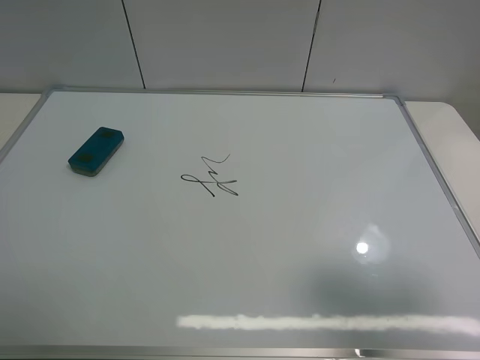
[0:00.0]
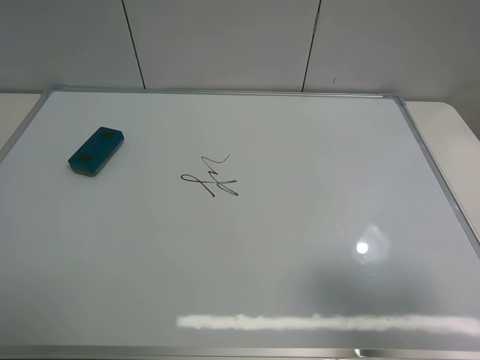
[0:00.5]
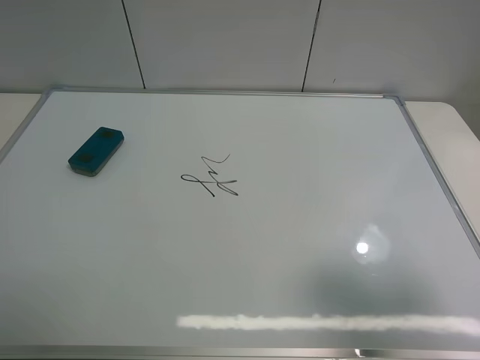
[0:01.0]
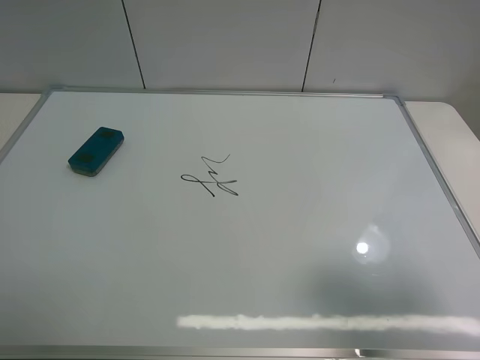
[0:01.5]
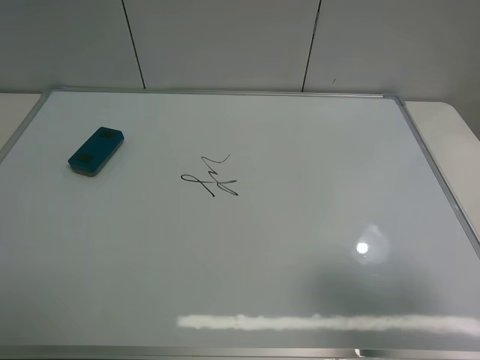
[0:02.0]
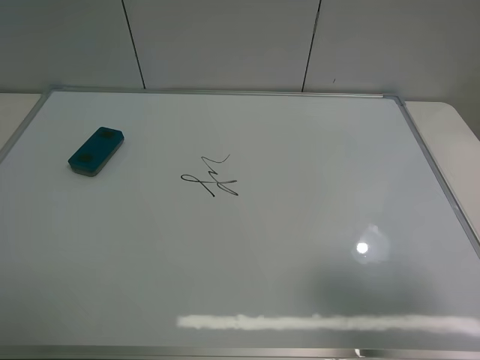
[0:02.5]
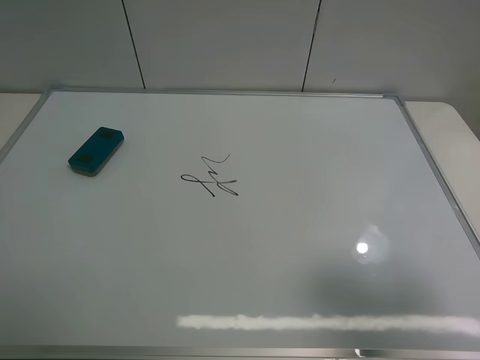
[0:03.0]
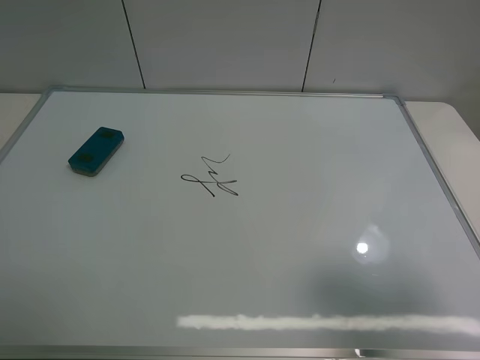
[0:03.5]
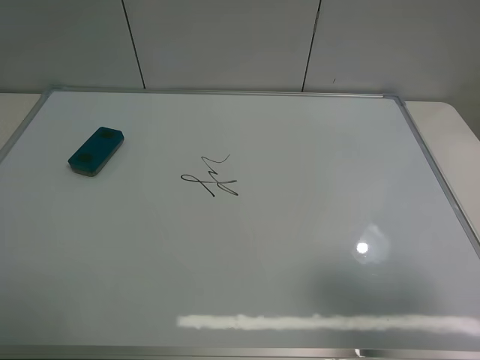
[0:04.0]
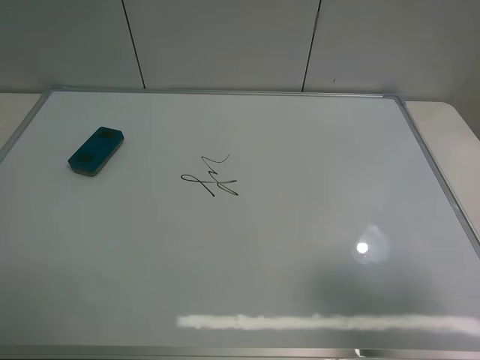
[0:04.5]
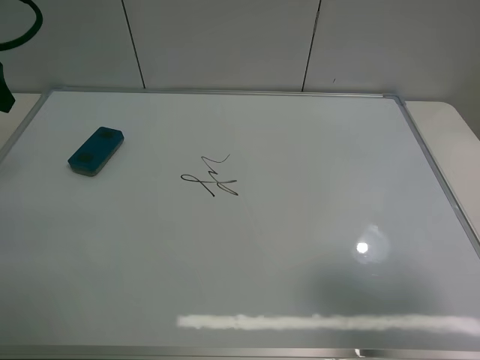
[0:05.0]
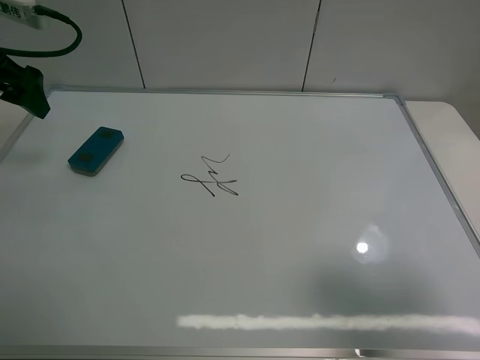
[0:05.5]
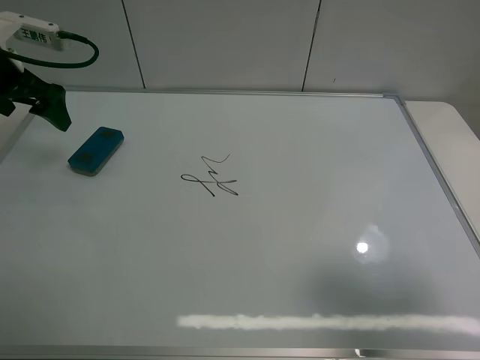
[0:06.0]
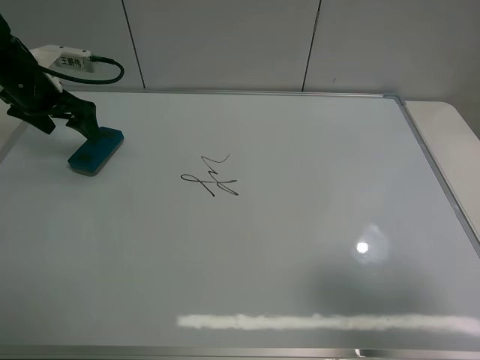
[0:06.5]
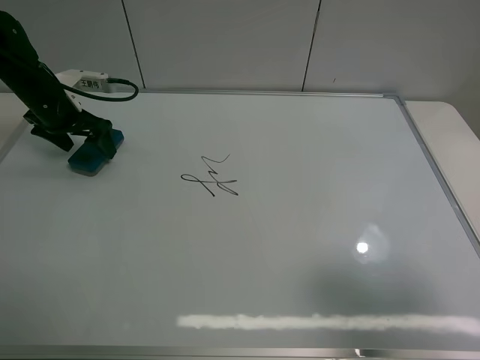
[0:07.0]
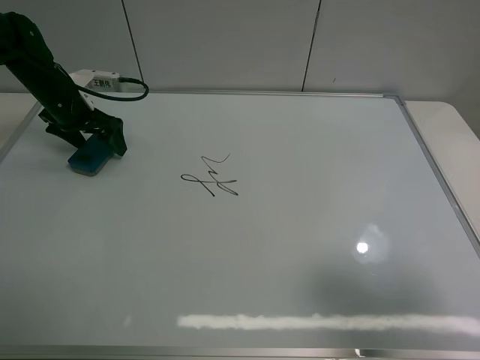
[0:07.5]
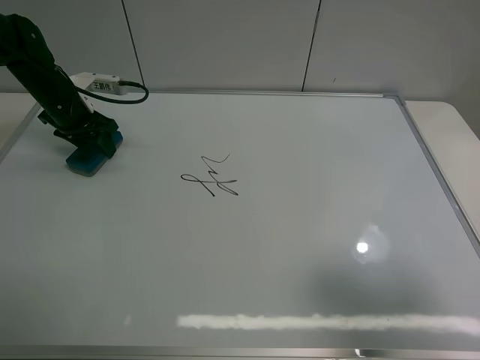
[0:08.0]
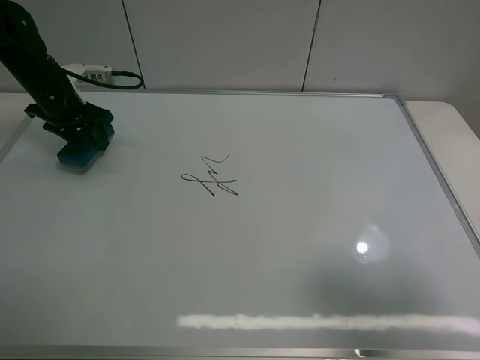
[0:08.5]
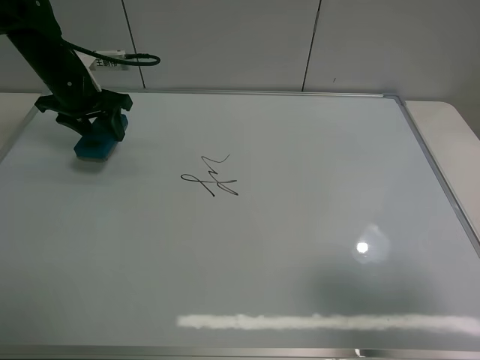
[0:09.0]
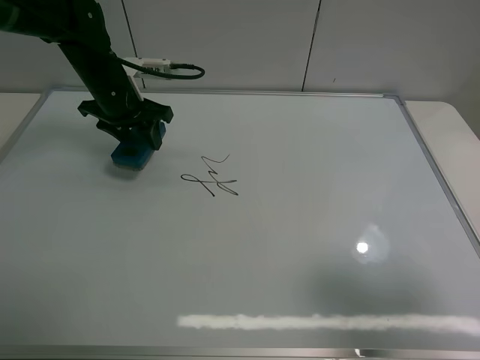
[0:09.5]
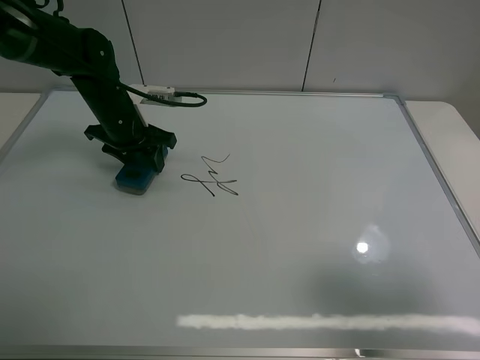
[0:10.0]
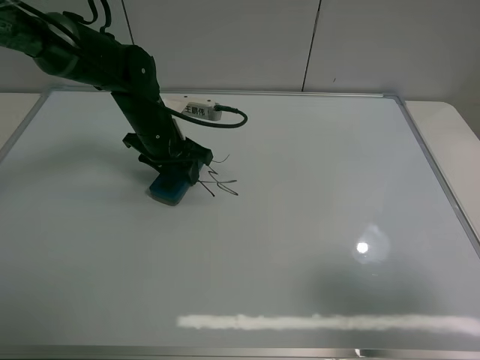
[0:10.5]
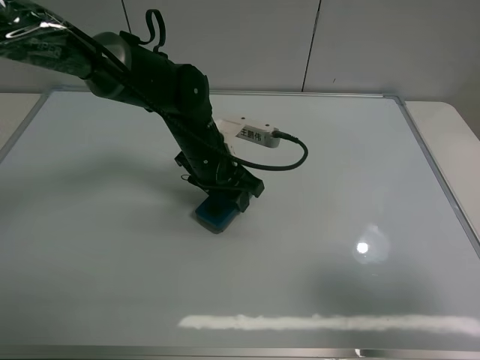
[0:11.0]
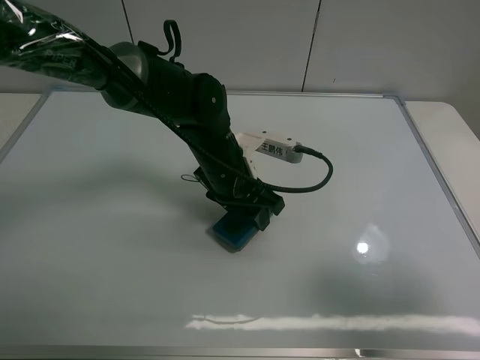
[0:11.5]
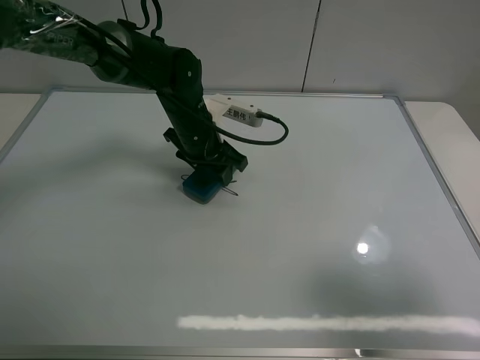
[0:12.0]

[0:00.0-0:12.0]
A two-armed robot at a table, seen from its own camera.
Task of the whole recording: use the left claw to pick up the whiteboard eraser, wipe the notes on the whiteboard clean, and then put them back in place.
Step, 0:00.0 to 0:08.0: Grasp the eraser with the left gripper.
0:00.0 to 0:02.0: Both grippers stay put.
0:04.0 to 0:06.0: The left gripper shifts roughly 25 cm forward.
0:06.0 to 0:08.0: The left gripper moves downward and forward, some 15 cm, and closes its fingers.
0:08.0 to 0:10.0: The left gripper goes approximately 10 cm to the right.
0:10.0 to 0:12.0: The left gripper moves to the right, approximately 10 cm.

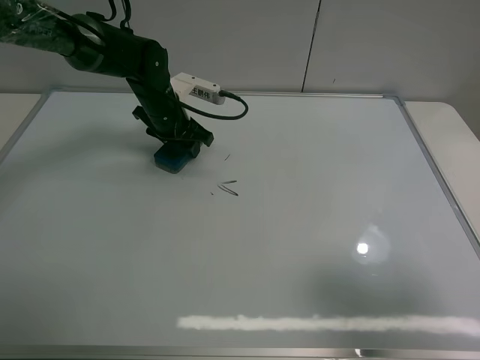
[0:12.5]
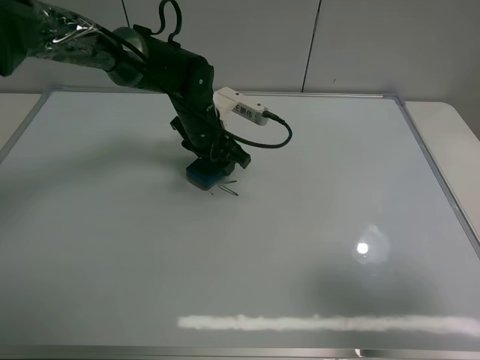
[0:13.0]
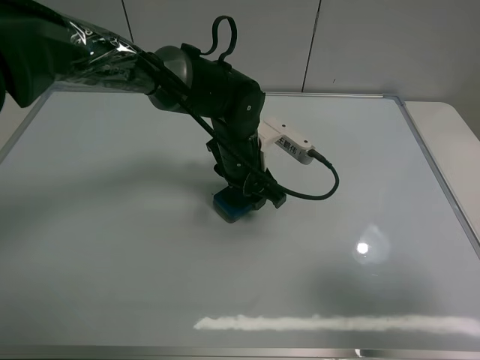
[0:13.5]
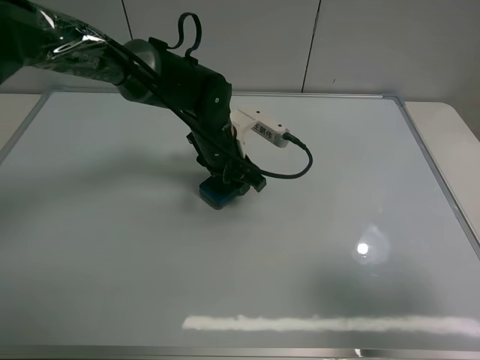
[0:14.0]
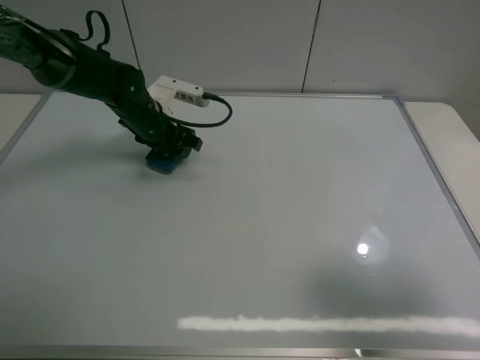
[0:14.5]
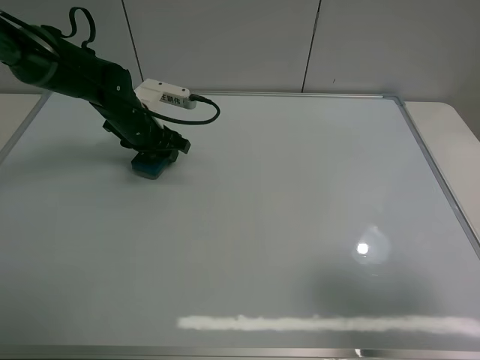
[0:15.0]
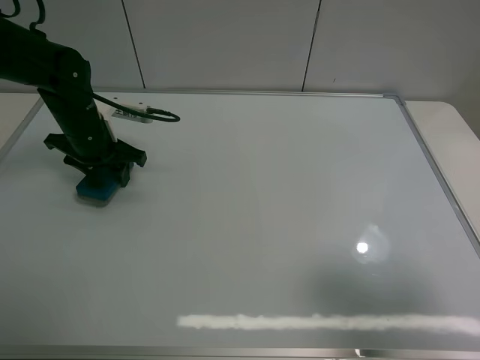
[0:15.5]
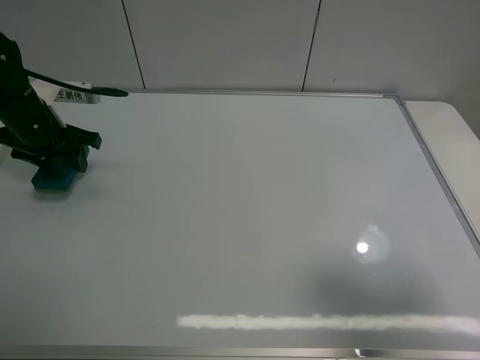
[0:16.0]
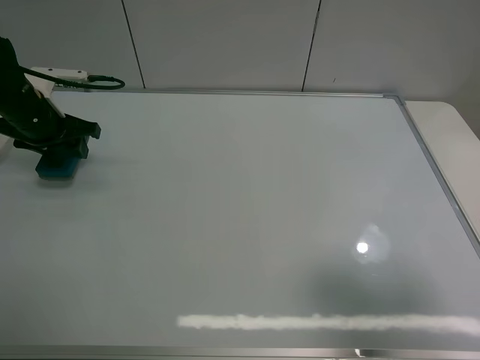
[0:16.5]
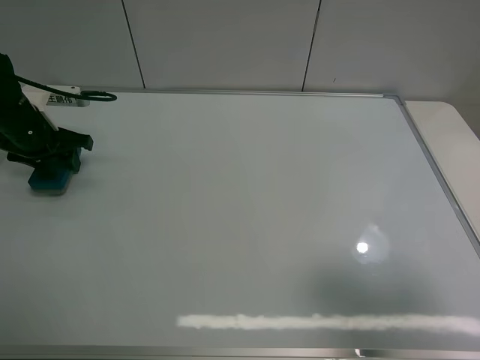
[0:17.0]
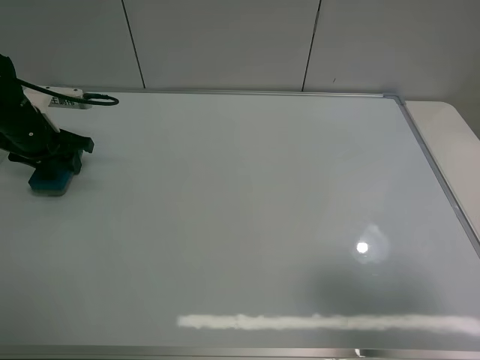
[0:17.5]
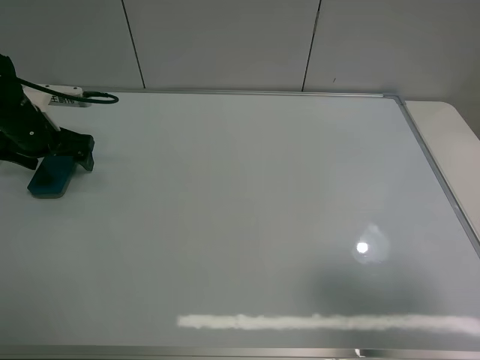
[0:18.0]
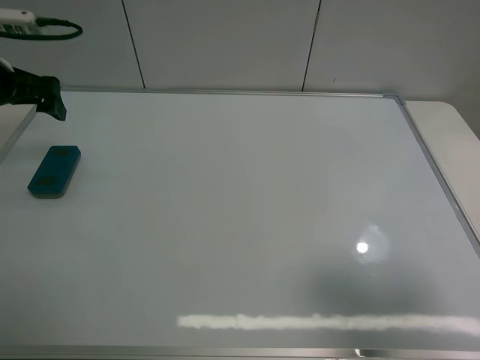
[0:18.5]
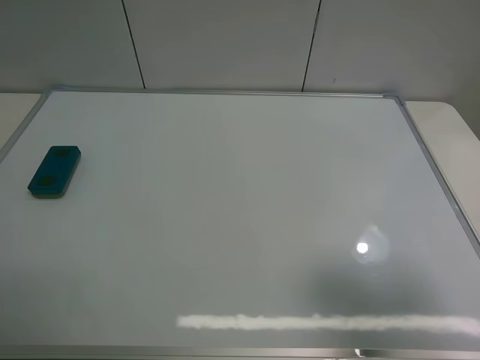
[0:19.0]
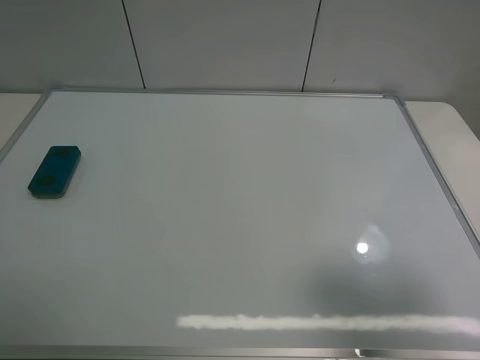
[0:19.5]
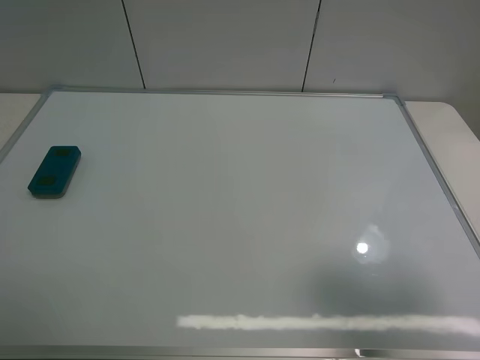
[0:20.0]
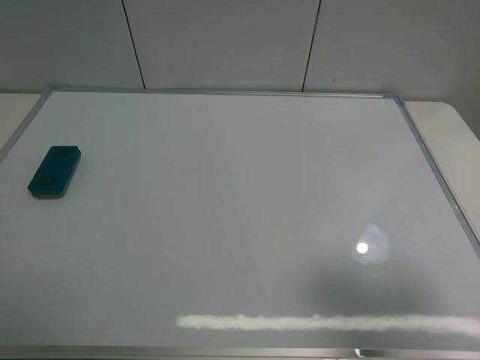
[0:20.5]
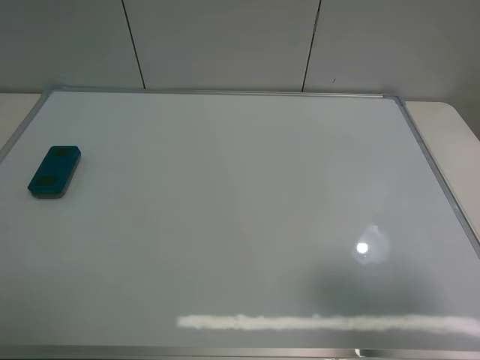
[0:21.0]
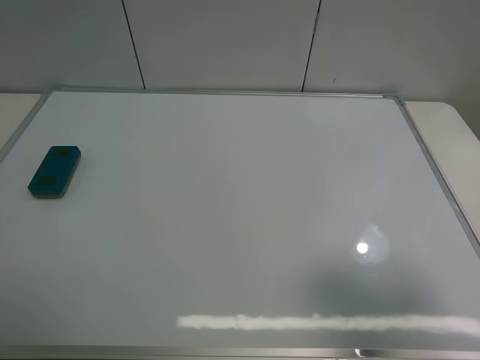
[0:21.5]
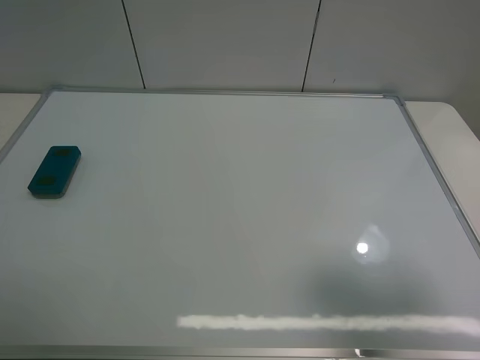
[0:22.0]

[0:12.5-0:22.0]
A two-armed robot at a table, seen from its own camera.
Task of the whole recording: use the left claw to pick up the whiteboard eraser, wipe the notes on the whiteboard clean, and then put them back in place.
Step, 0:12.5 to 0:14.5: Grasp the eraser and wipe the blackboard with the left gripper.
Step, 0:15.0 to 0:18.0: Place the eraser with the left gripper.
0:12.5 to 0:14.5: The left gripper travels to the right and back again, some 15 cm each way.
0:14.5 to 0:16.5: The left gripper goes about 15 cm to the left and upward.
0:16.5 to 0:18.0: The left gripper opens up.
0:18.0 to 0:20.0: The left gripper is displaced backward and upward by about 40 cm.

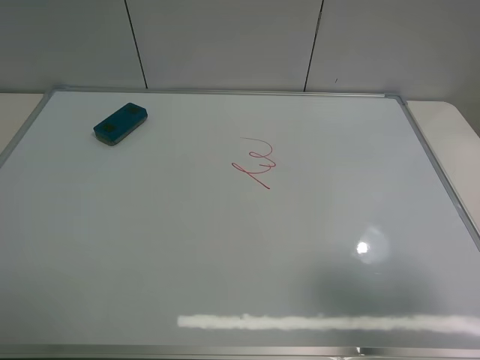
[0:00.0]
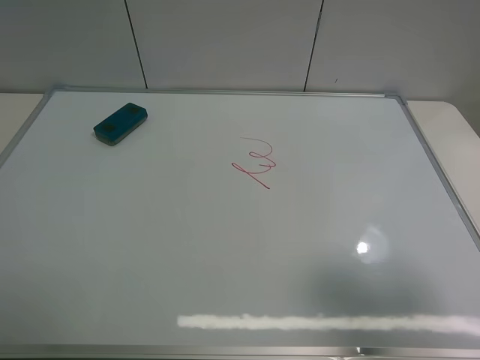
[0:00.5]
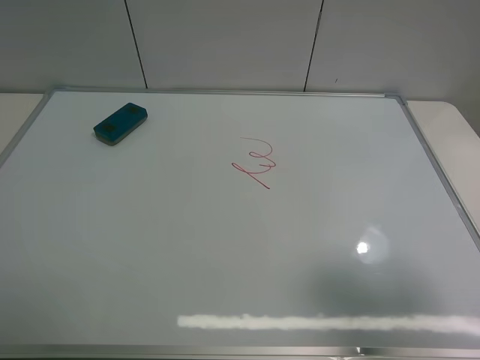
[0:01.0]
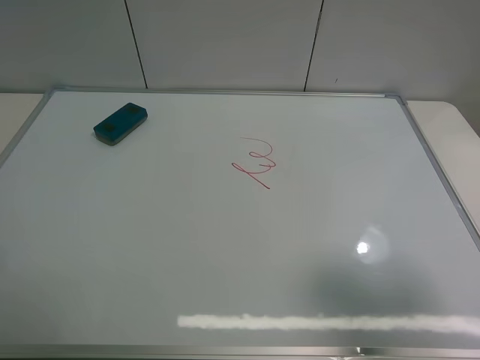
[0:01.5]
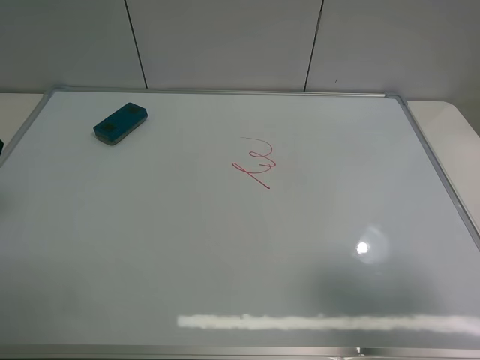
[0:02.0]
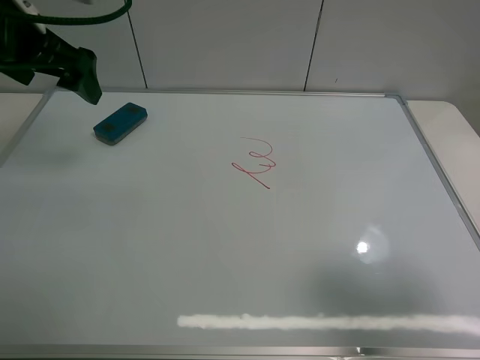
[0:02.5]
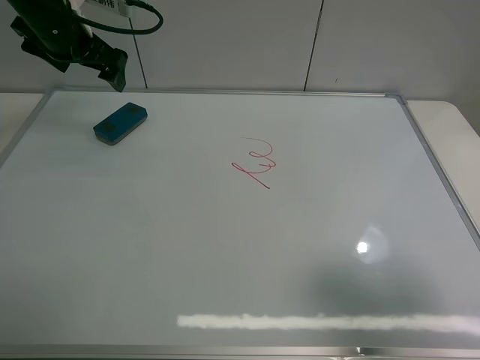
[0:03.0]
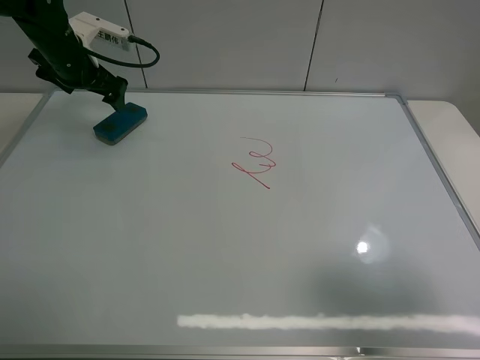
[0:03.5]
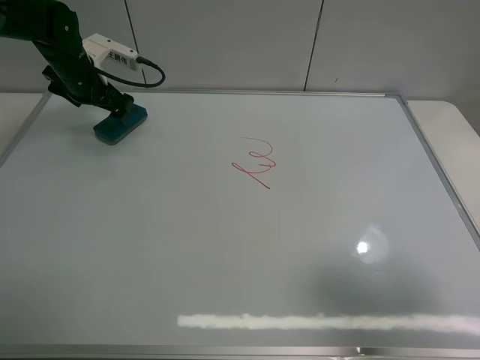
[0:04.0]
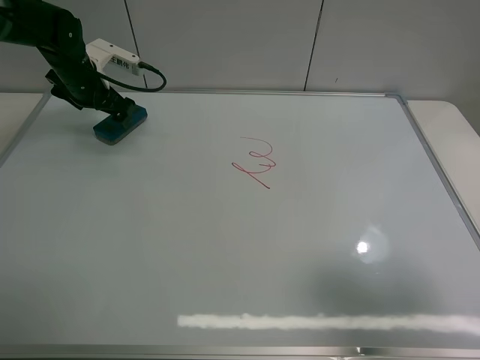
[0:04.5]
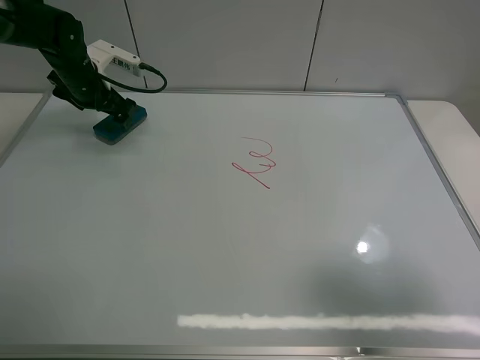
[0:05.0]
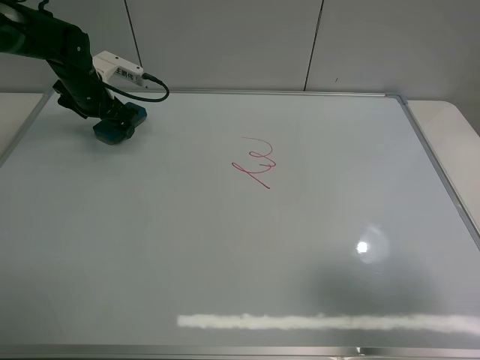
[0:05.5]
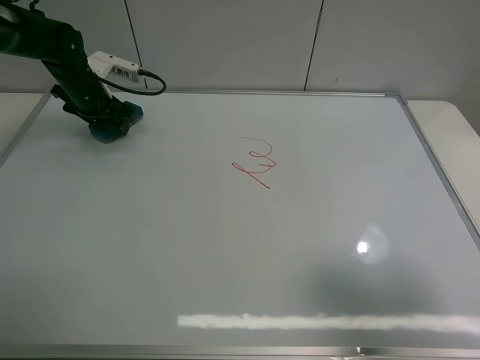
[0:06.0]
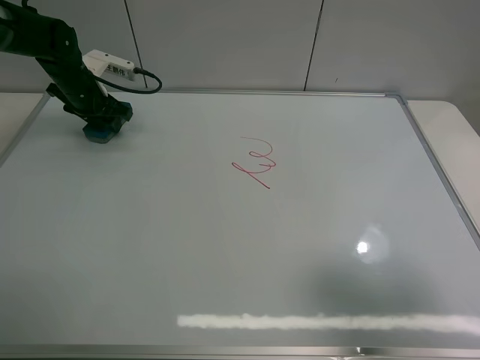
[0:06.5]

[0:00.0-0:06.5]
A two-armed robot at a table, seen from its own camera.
Task of the whole recording: use the left claw to pick up the whiteboard eraser, wipe the notes on the whiteboard clean, and then put them back in place.
Step, 0:00.0 to 0:06.0: Grasp the eraser with the left gripper.
0:02.0 to 0:04.5: The left gripper travels forward and downward by some 30 cm.
0:04.5 to 0:06.5: The left gripper closes up.
